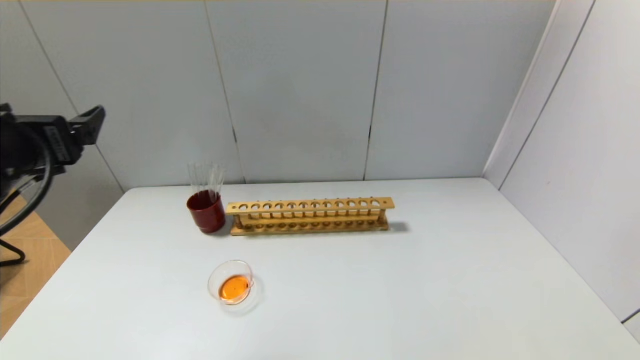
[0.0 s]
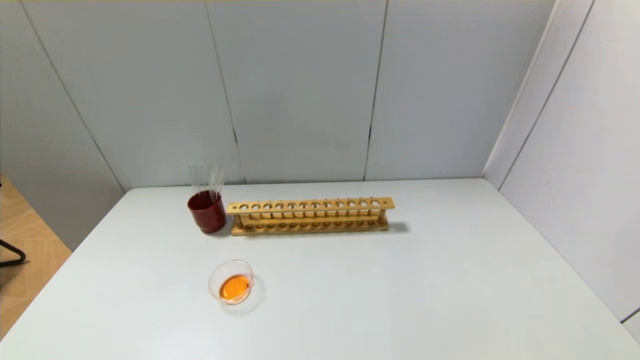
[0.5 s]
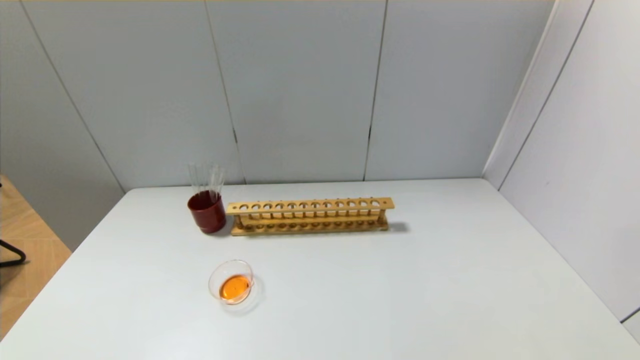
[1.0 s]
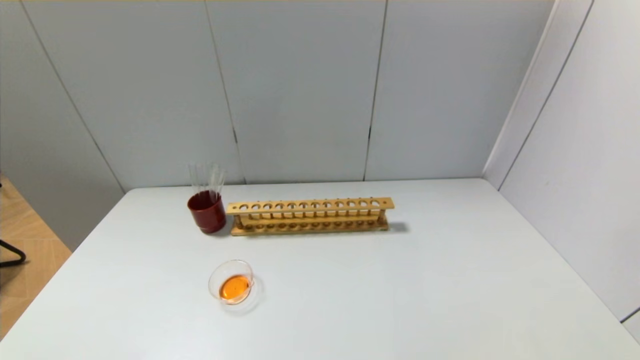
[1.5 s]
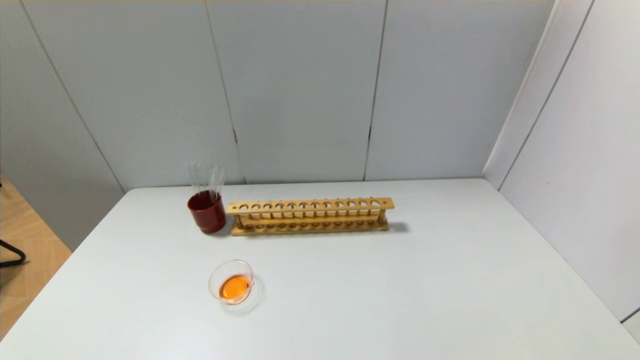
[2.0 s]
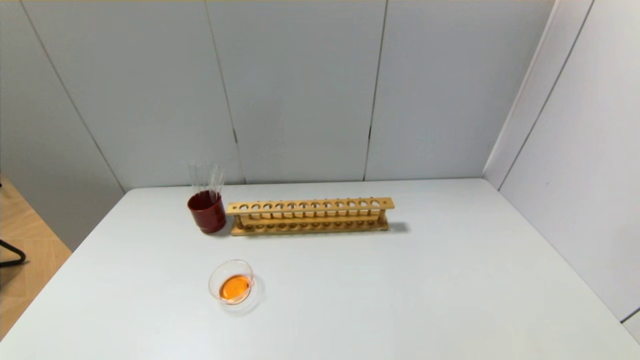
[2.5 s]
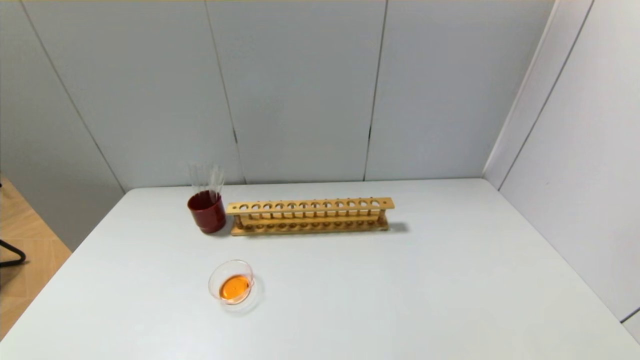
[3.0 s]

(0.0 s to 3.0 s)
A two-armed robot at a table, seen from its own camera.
0.0 s - 1.5 s: The left gripper shifts approximately 25 cm backward and downward.

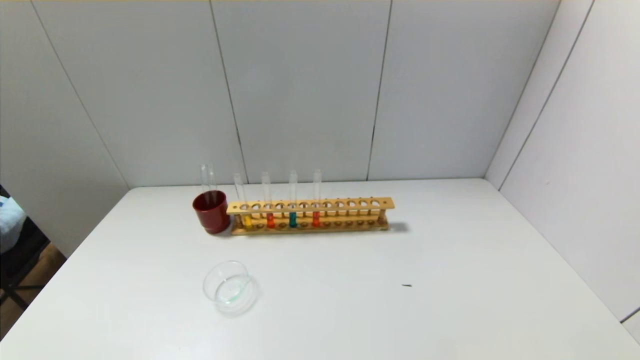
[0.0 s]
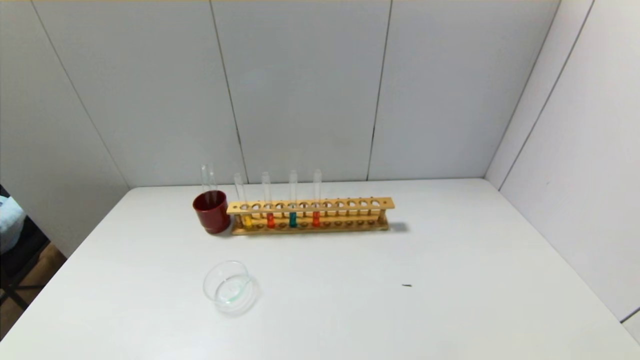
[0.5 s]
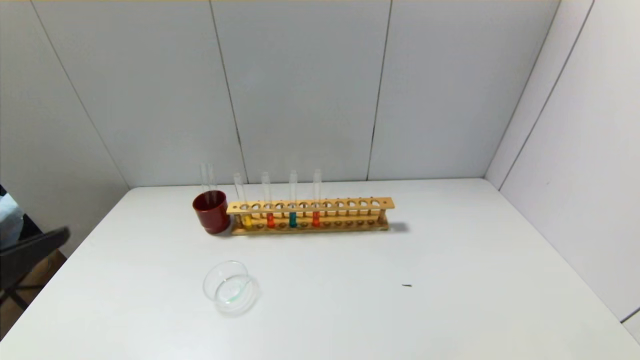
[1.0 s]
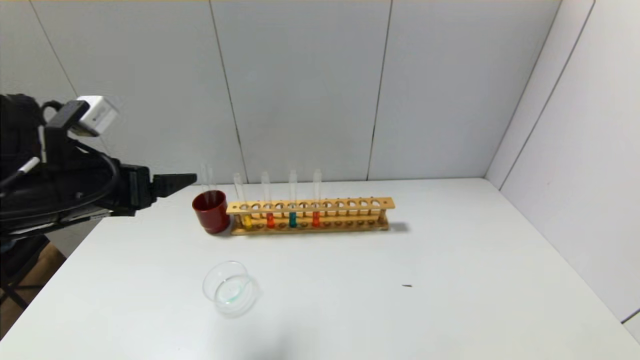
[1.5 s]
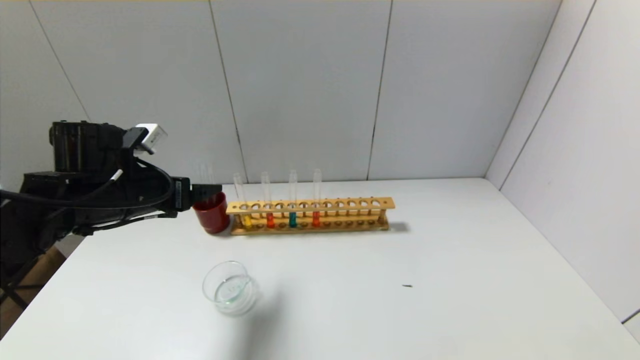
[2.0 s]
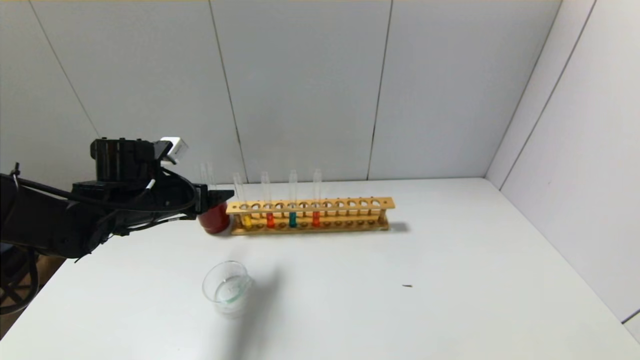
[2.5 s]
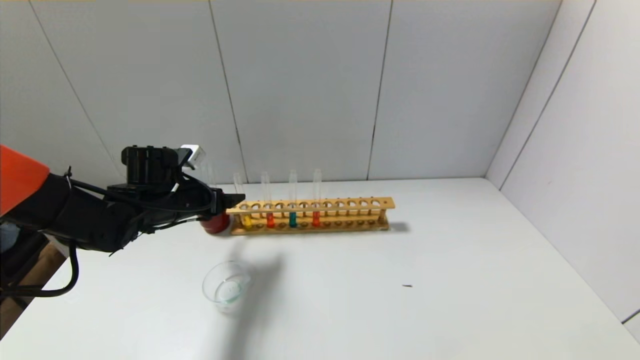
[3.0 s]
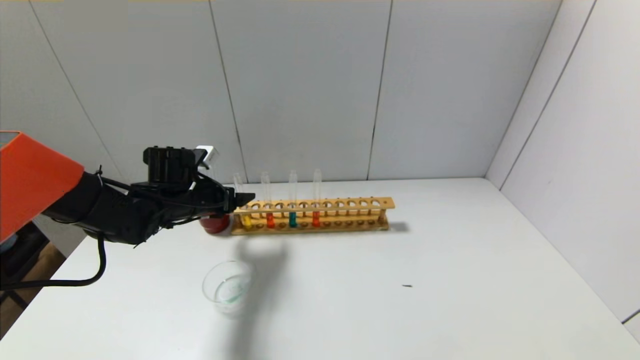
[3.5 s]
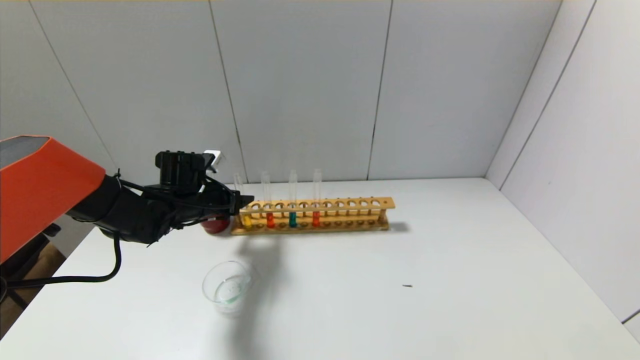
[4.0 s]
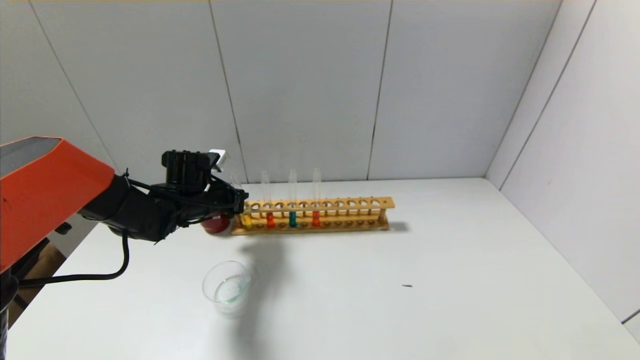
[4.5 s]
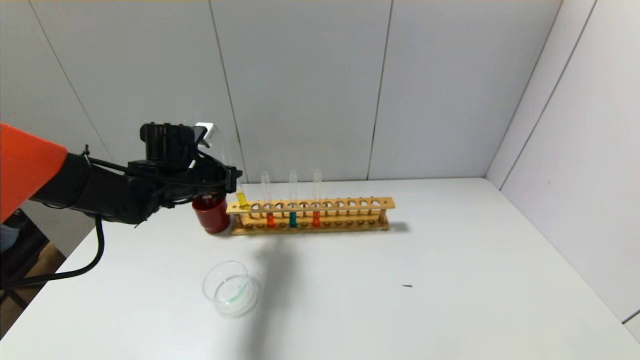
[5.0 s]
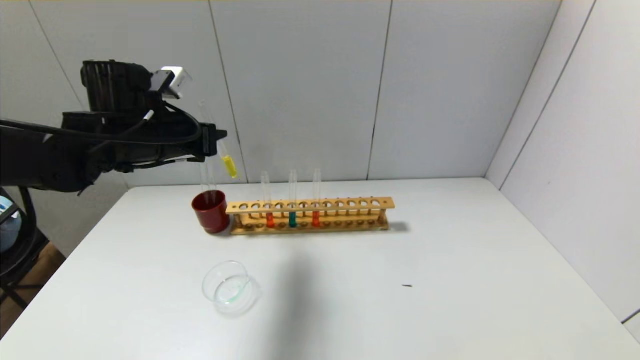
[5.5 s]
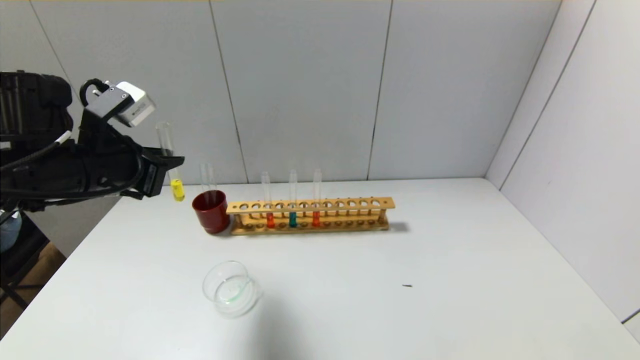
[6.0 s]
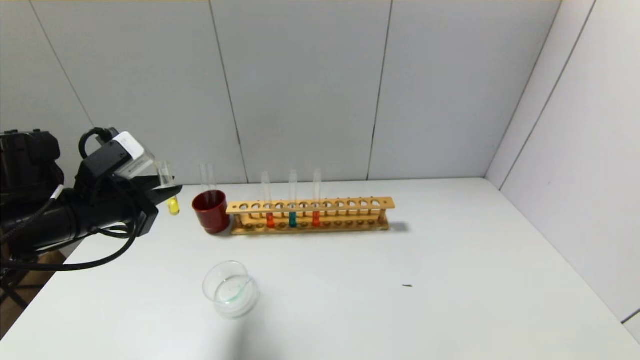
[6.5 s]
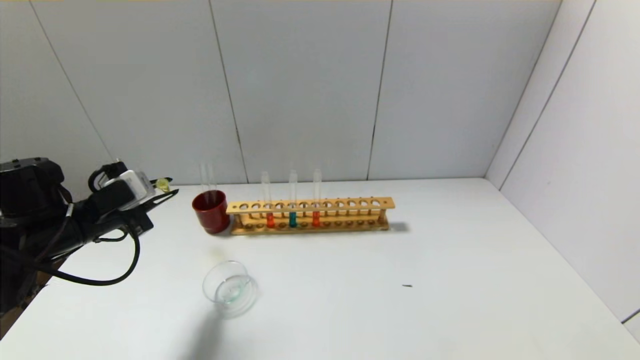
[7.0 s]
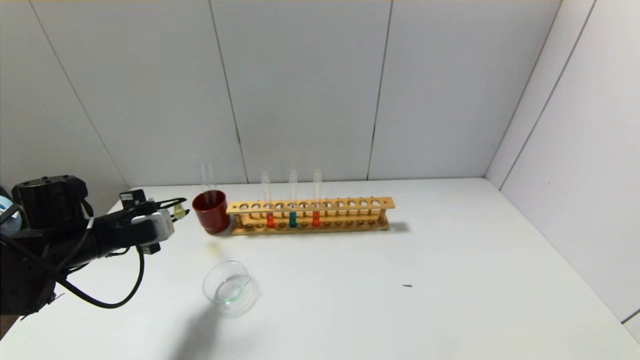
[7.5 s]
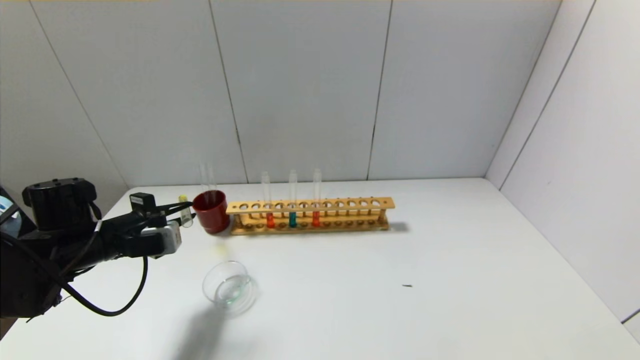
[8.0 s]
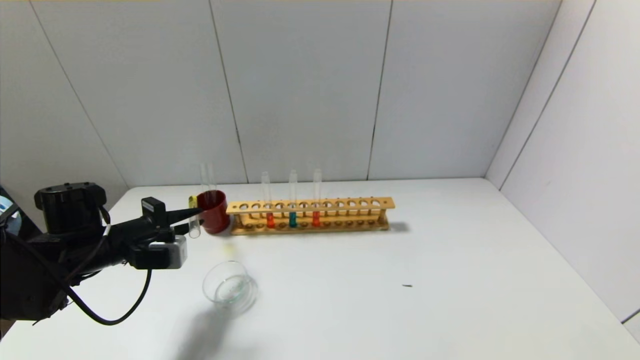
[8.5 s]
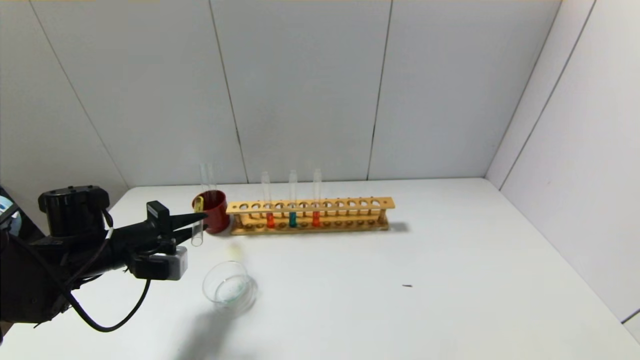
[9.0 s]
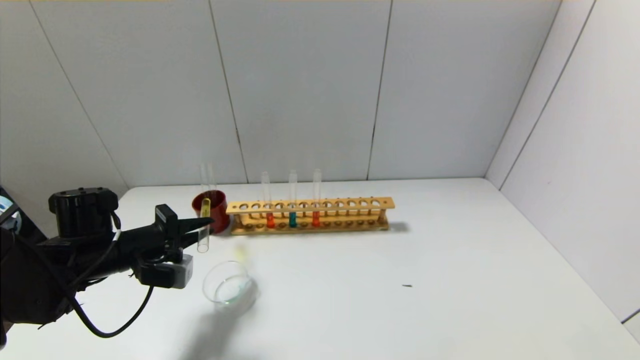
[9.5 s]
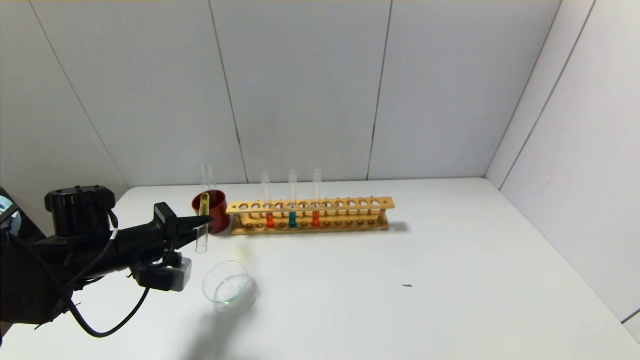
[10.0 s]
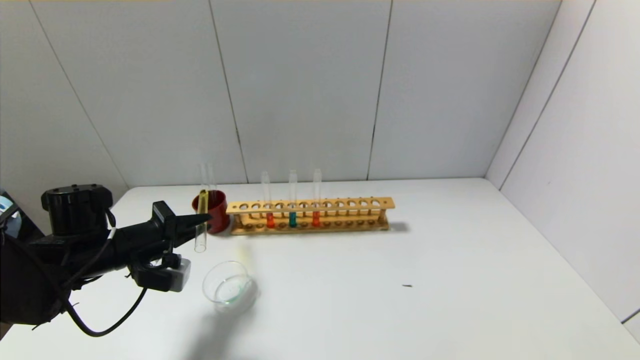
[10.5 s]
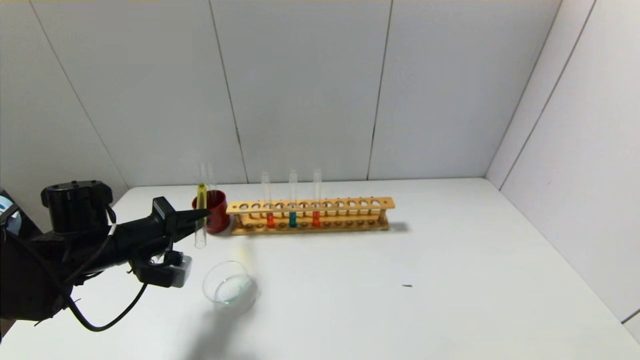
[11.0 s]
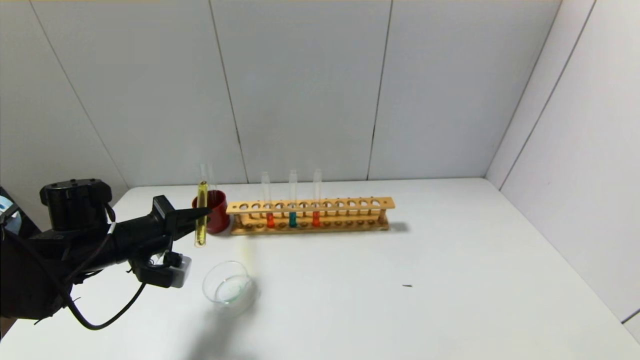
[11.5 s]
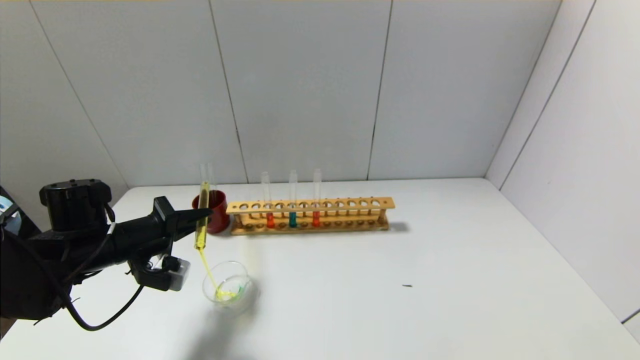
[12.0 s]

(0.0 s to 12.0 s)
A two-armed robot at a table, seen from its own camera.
Step, 0.0 s - 4.0 s: Grasp the yellow reagent with the left gripper.
0.0 s - 2.0 s: The left gripper heads forward, covering roughly 35 cm.
2.0 s - 4.0 s: The left gripper heads forward and downward, covering approximately 10 cm, and closes its fingers.
4.0 s - 6.0 s: The left gripper is displaced upward and backward by roughly 20 cm, and closes its fingers.
6.0 s - 8.0 s: The left gripper travels downward by approximately 15 cm.
10.0 s - 12.0 s: The grippers make only small movements.

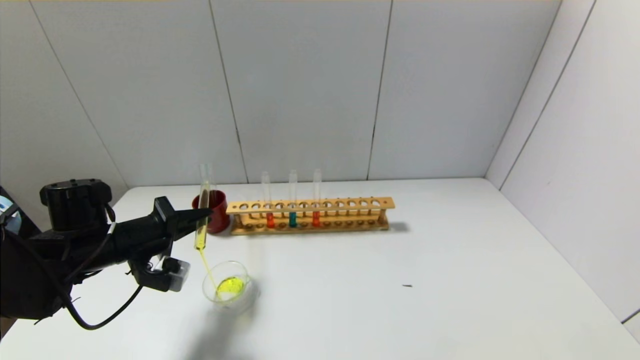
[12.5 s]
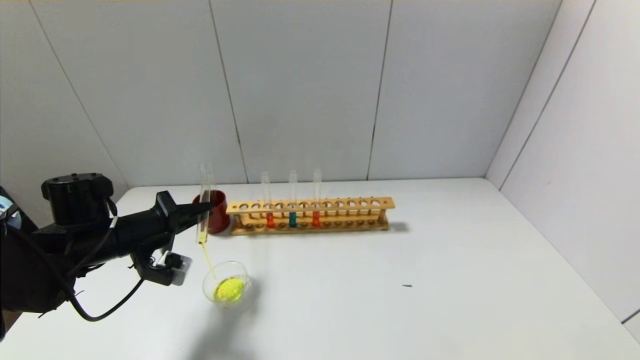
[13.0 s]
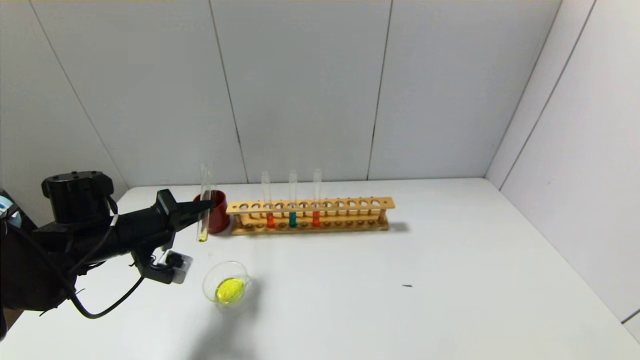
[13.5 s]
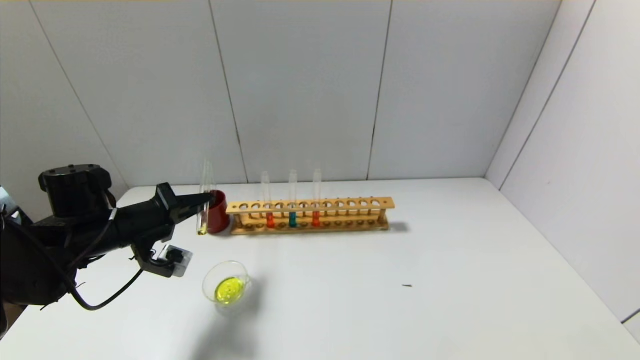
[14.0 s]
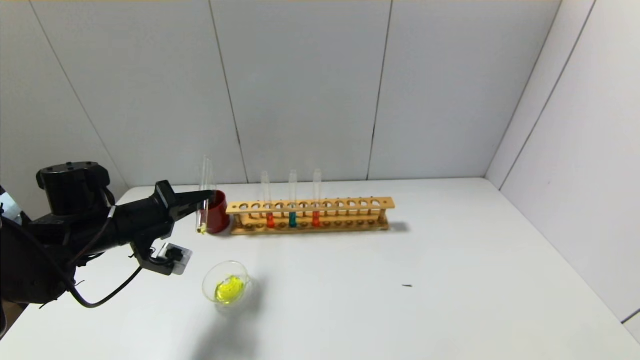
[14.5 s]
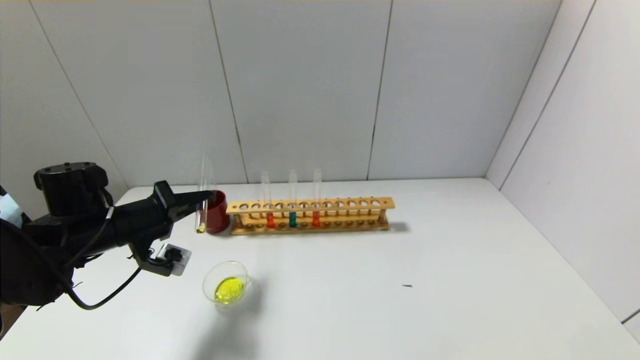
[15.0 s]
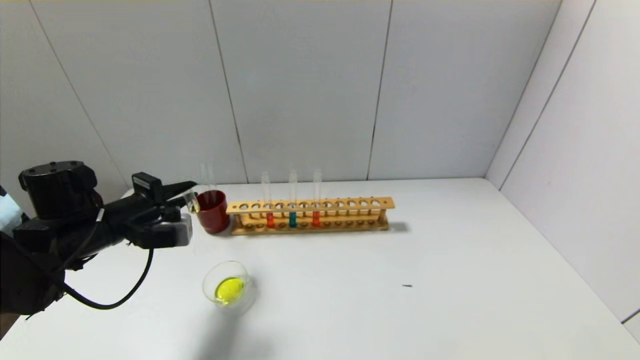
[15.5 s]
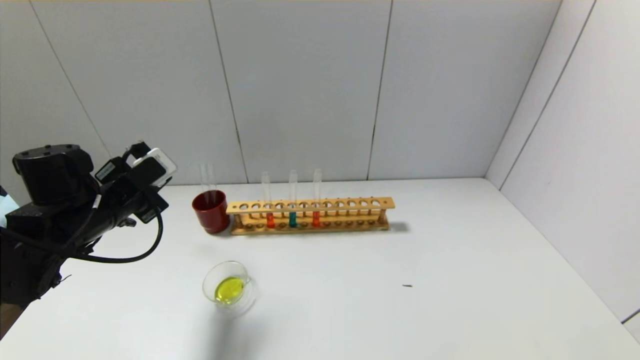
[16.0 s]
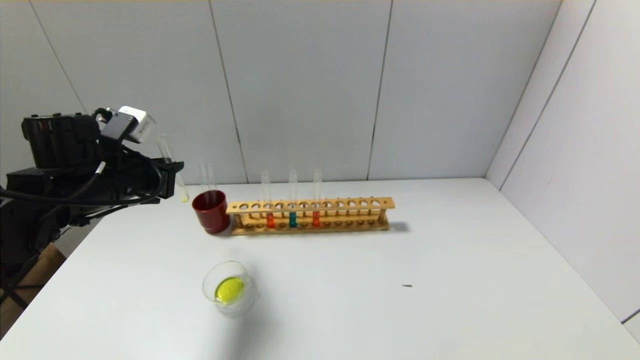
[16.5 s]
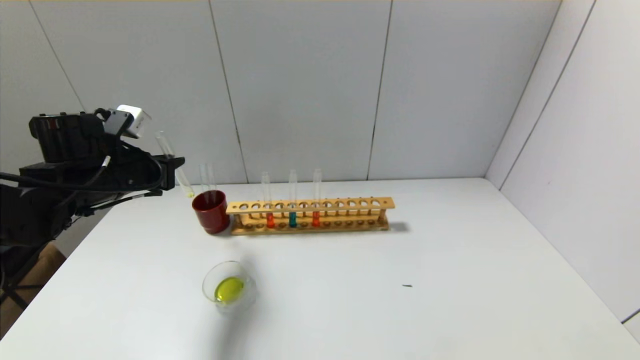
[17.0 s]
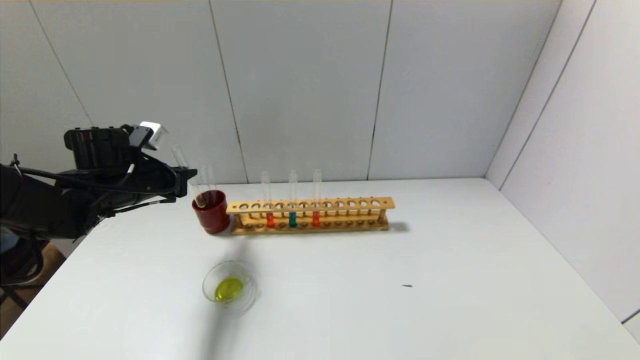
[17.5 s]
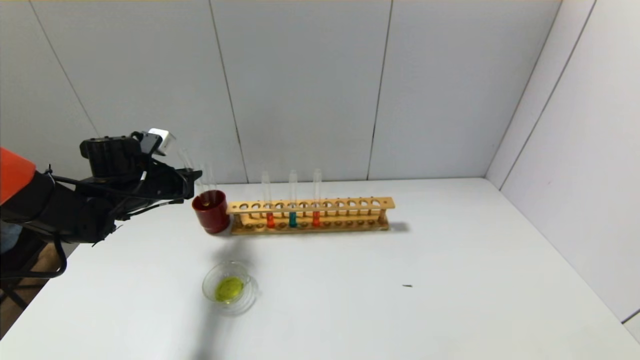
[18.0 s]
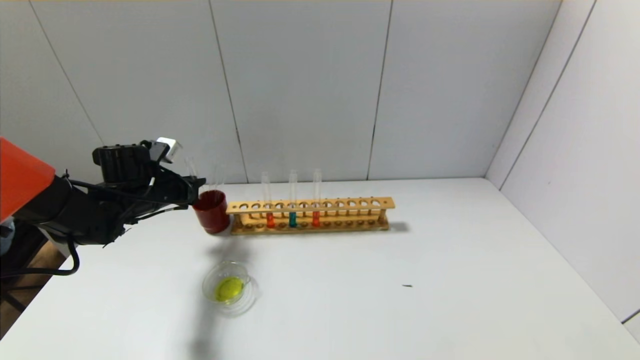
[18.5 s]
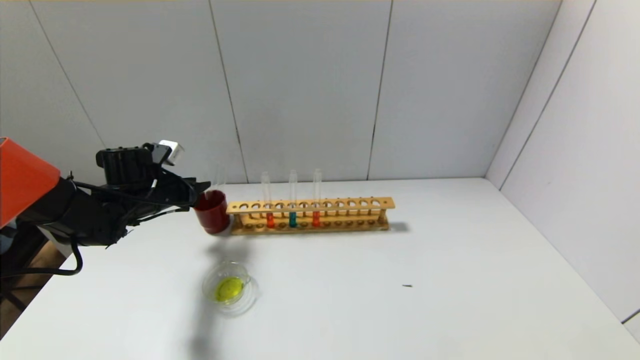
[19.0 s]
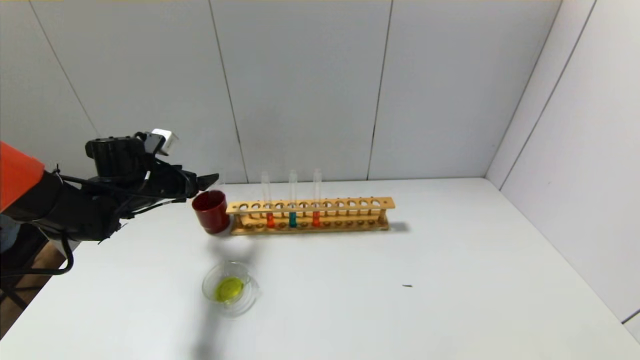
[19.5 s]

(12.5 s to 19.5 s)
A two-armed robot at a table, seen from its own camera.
Step, 12.5 s - 15.5 s: Pour the yellow reagent into the graduated cylinder with the left gripper.
Step, 16.0 s - 19.0 s: Place the test tube into the brown cup with the left gripper.
12.5 s - 14.5 s: The grippers stay close to where they were, moving slightly.
16.0 s - 17.5 s: The left gripper heads forward, covering some 5 cm.
17.5 s - 19.5 s: The left gripper opens its fingers.
